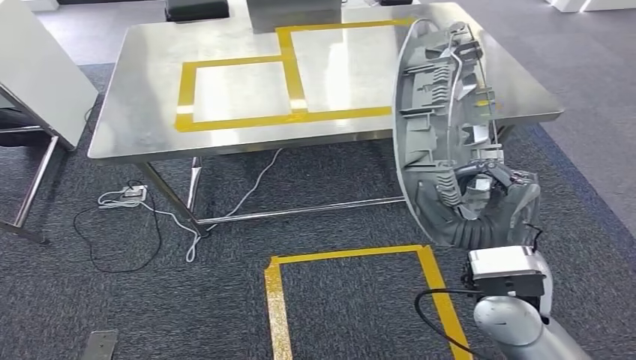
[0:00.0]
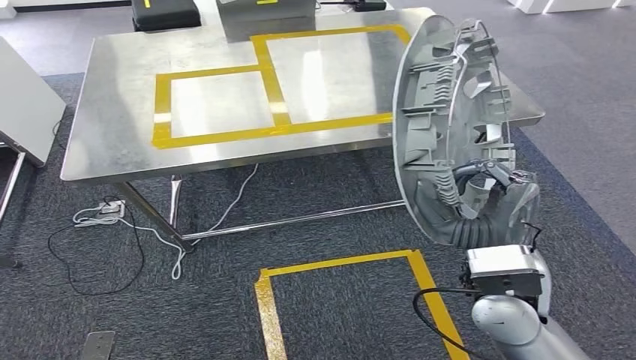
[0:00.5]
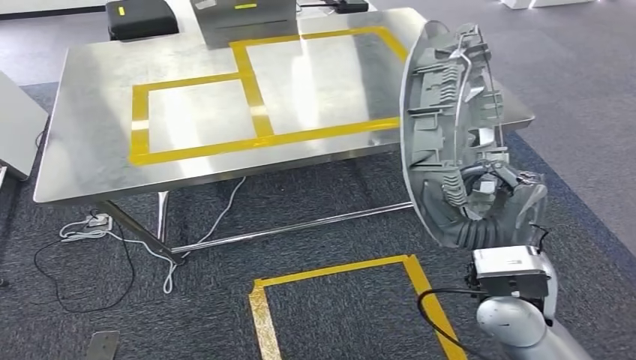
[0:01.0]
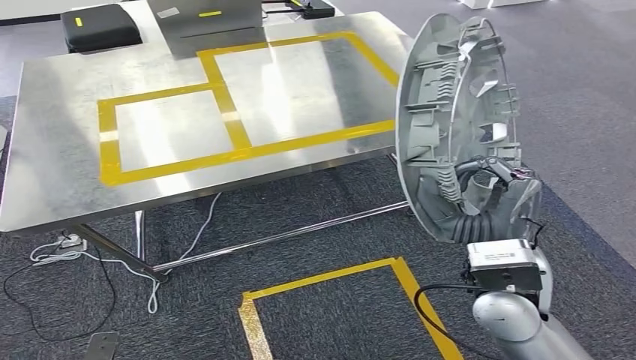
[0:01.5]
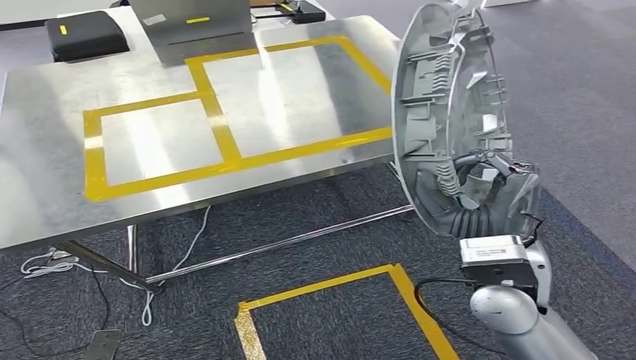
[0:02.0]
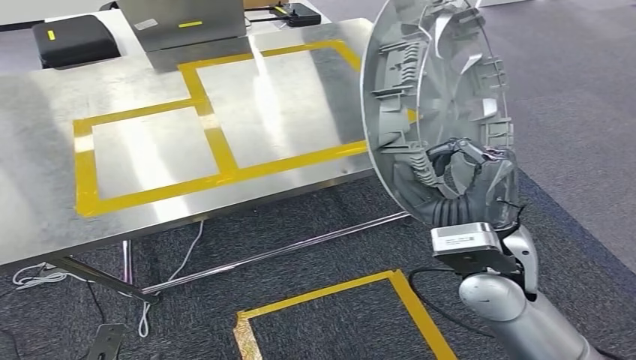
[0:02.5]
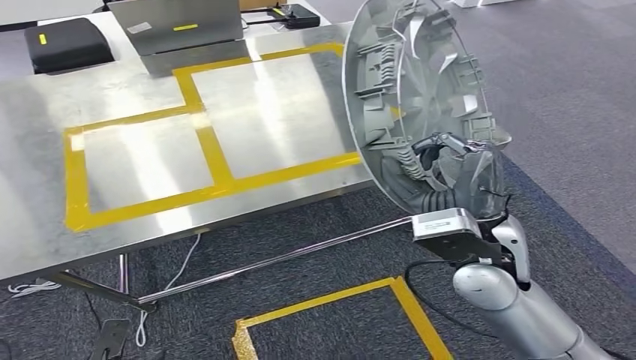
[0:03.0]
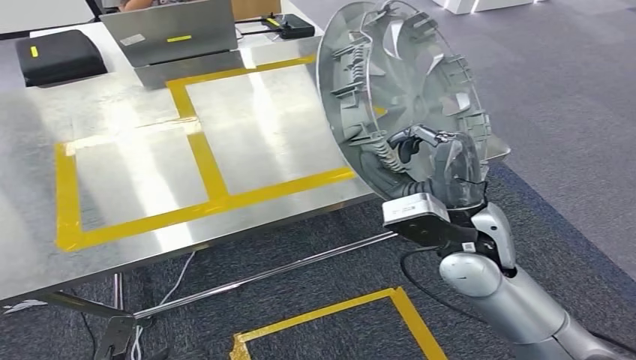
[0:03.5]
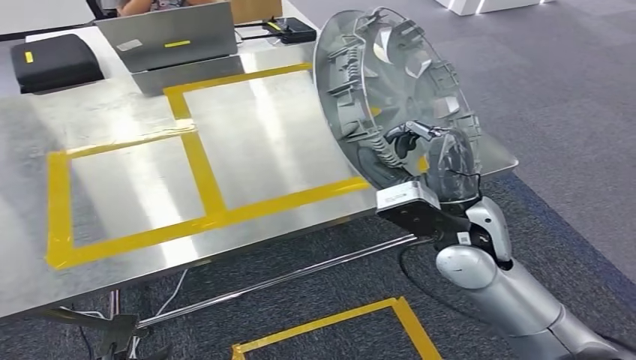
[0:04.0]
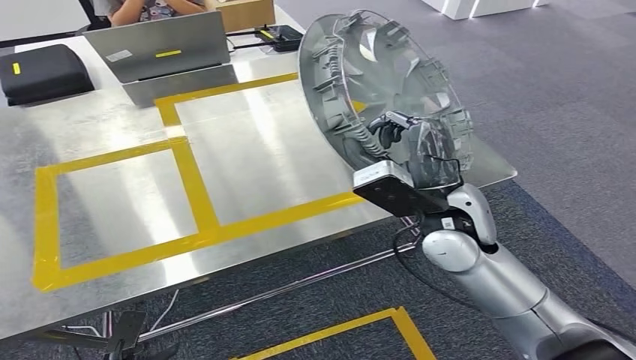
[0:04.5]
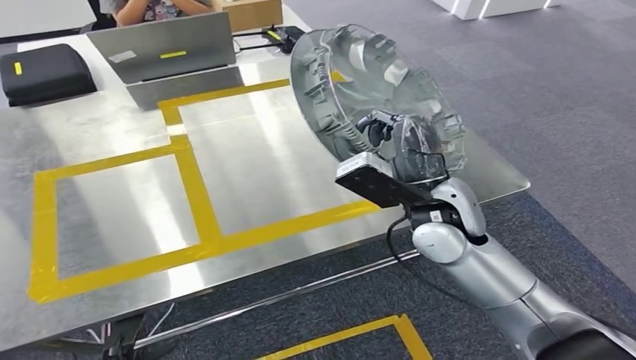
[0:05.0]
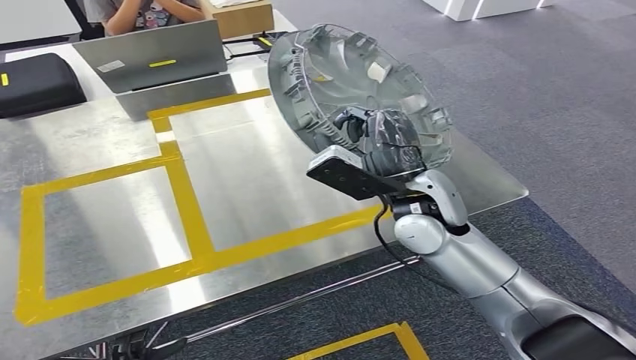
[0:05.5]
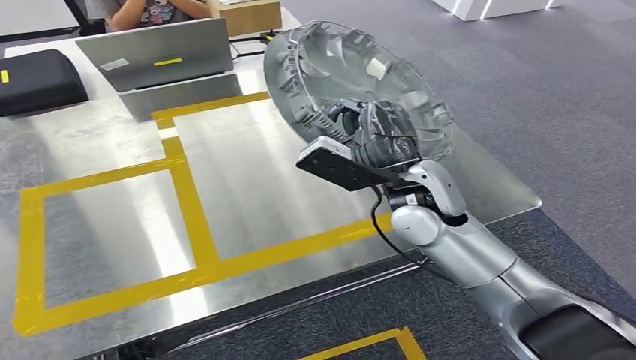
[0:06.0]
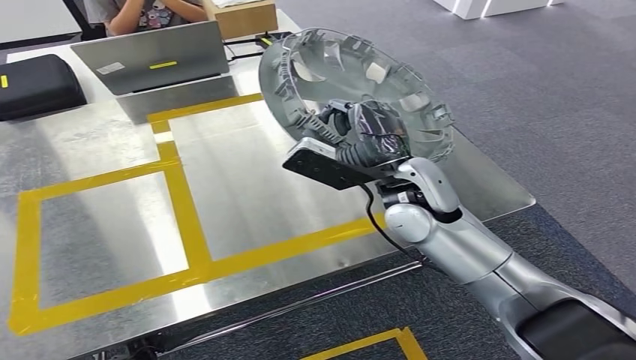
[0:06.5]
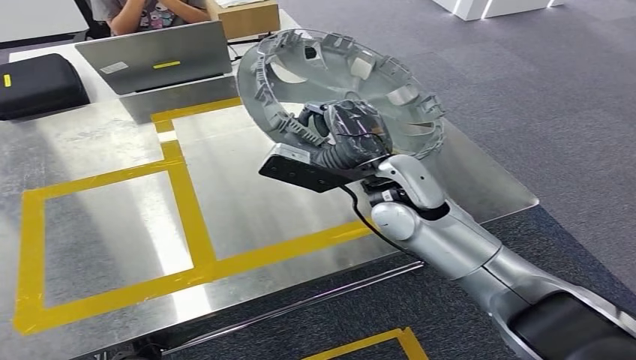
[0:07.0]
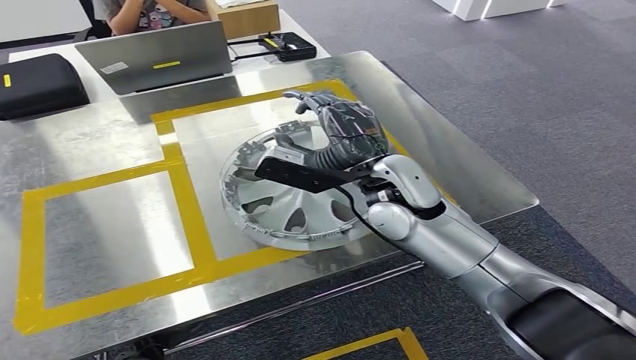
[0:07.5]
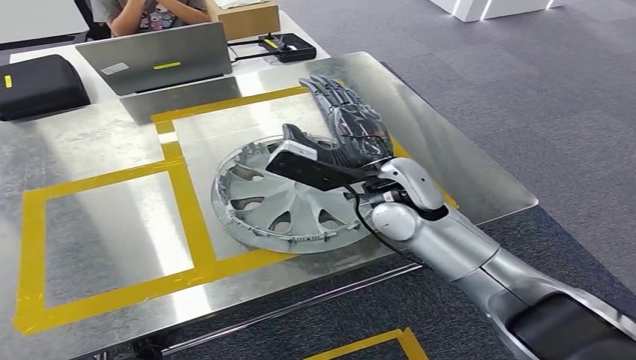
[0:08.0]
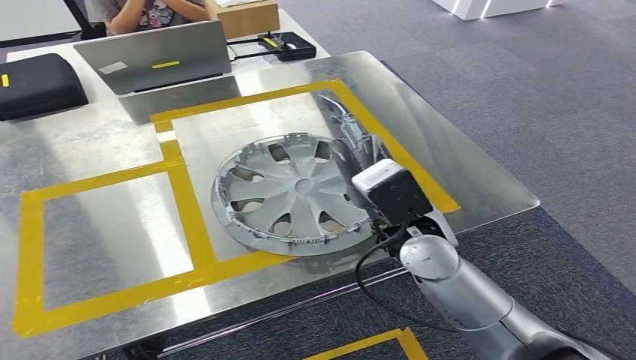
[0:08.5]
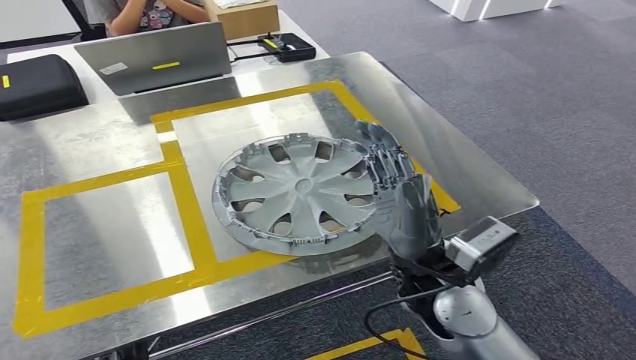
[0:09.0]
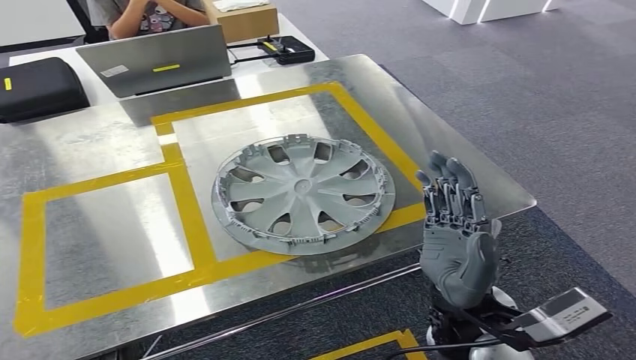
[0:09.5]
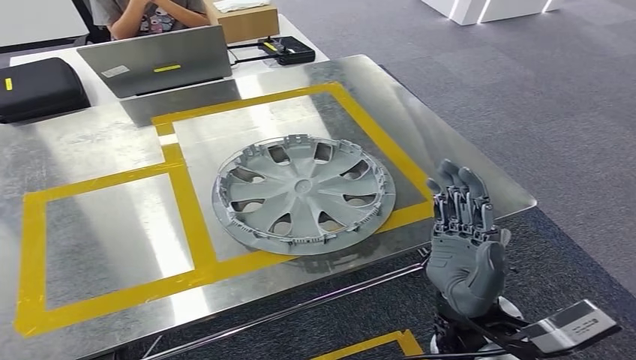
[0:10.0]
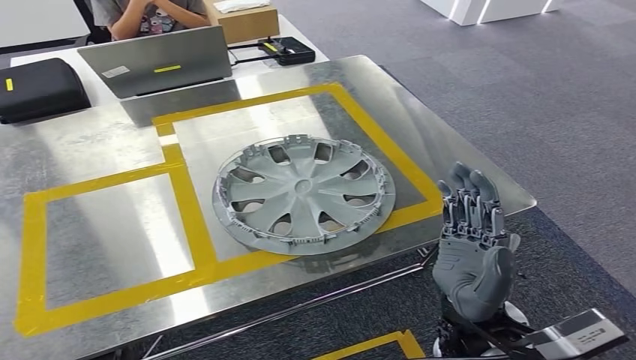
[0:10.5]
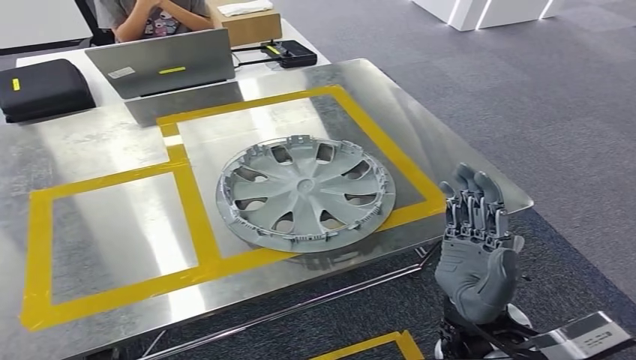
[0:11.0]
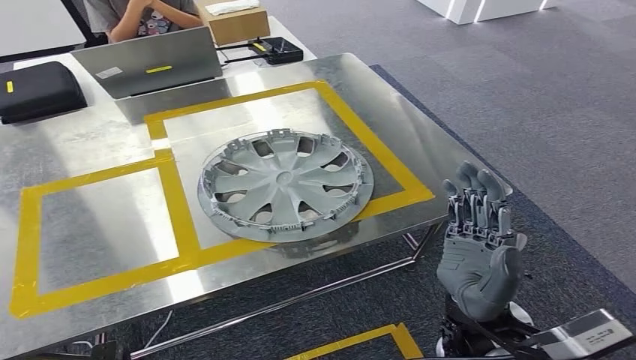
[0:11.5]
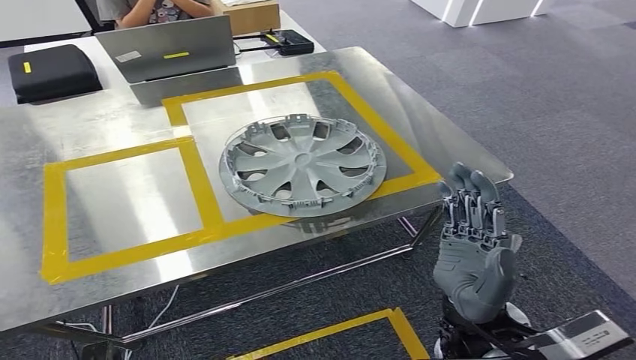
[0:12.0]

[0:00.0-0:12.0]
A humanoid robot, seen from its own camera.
Step, 0:00.0 to 0:09.5: Insert the small component into the corresponding slot on the workbench.

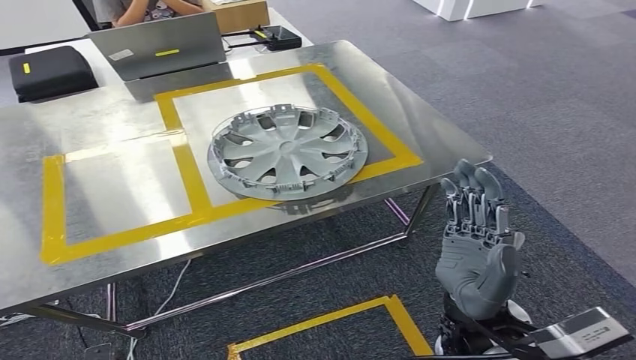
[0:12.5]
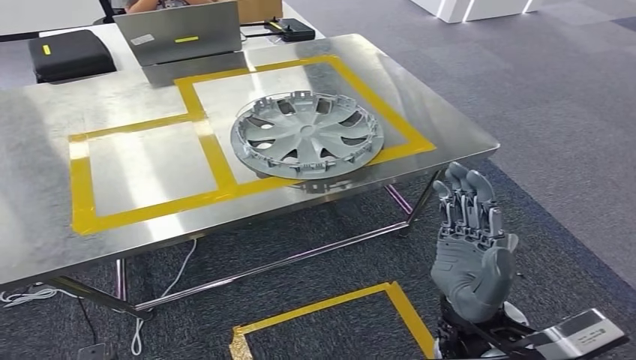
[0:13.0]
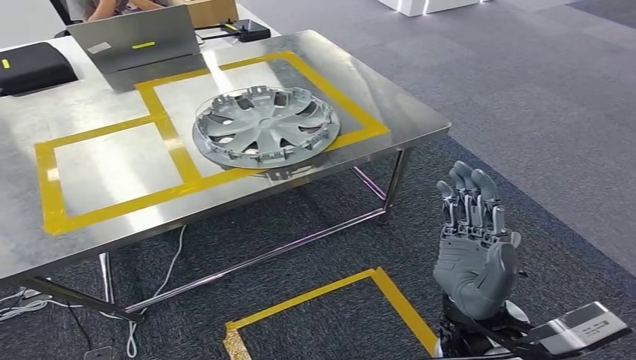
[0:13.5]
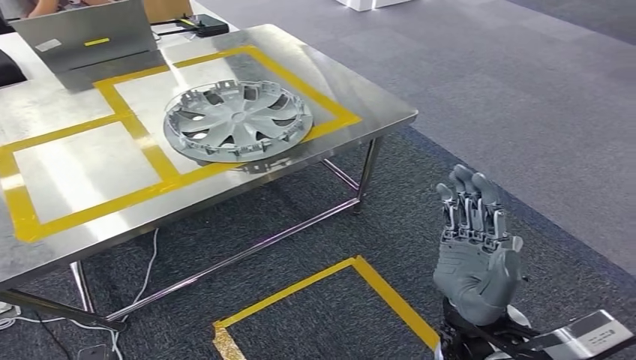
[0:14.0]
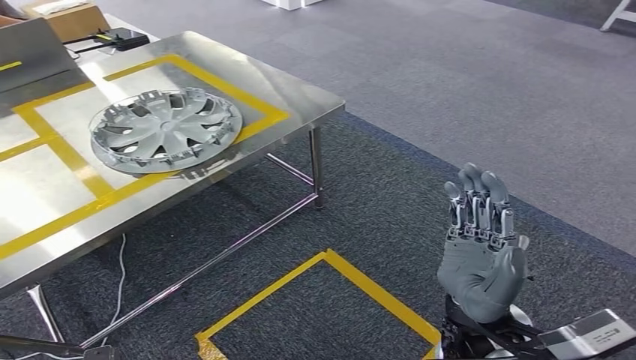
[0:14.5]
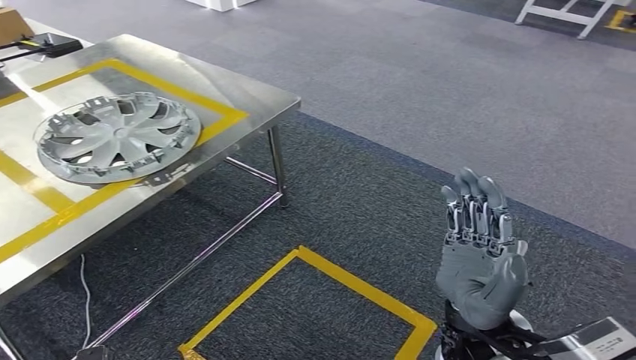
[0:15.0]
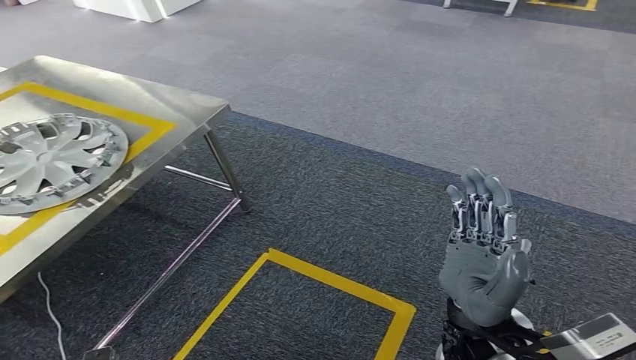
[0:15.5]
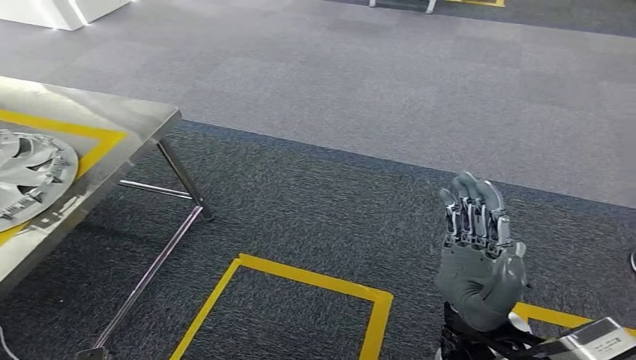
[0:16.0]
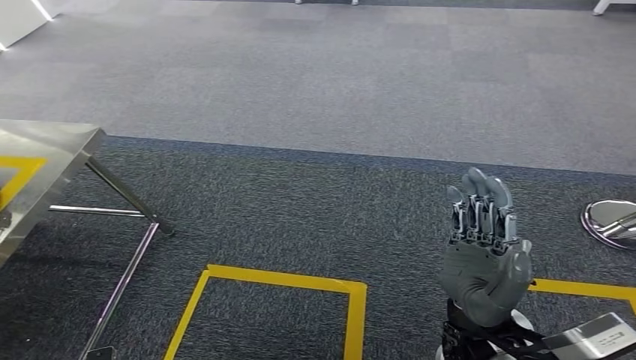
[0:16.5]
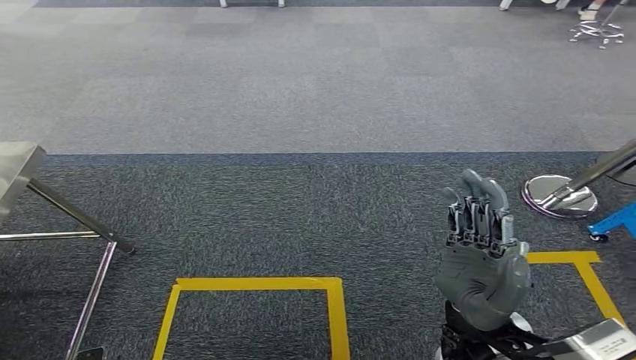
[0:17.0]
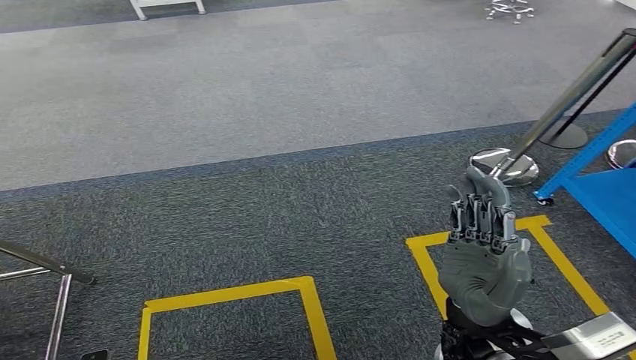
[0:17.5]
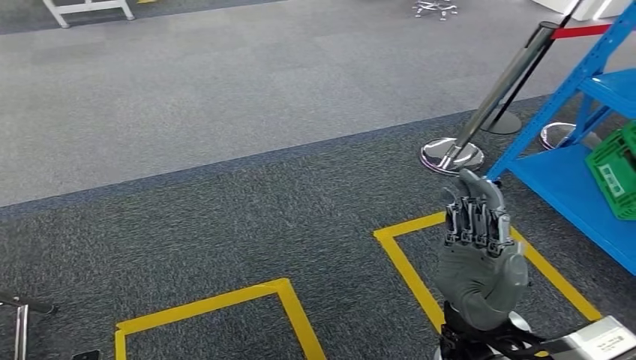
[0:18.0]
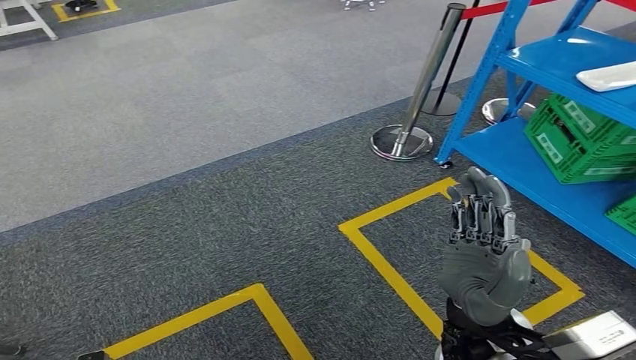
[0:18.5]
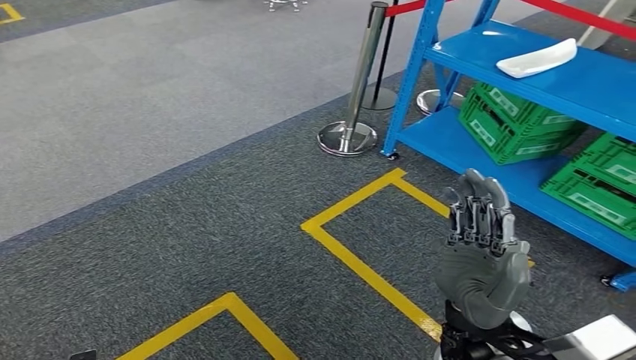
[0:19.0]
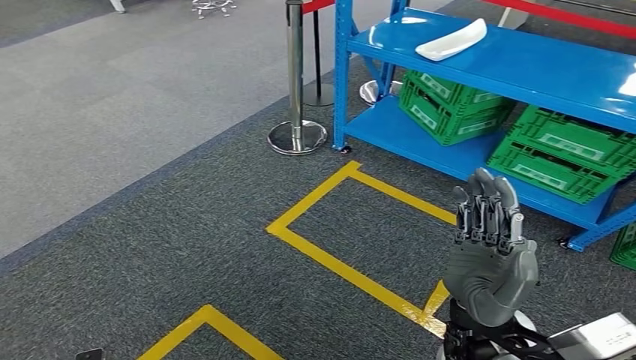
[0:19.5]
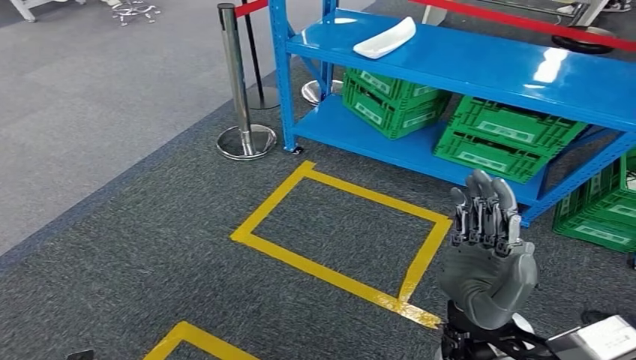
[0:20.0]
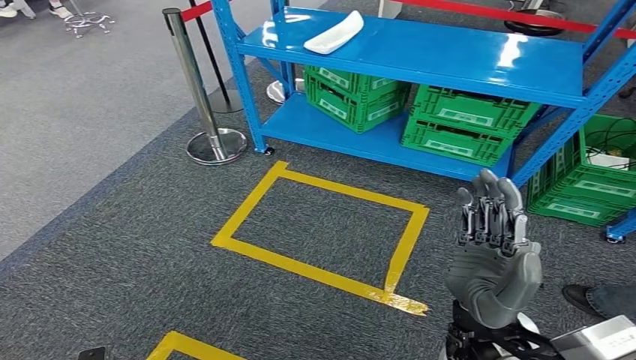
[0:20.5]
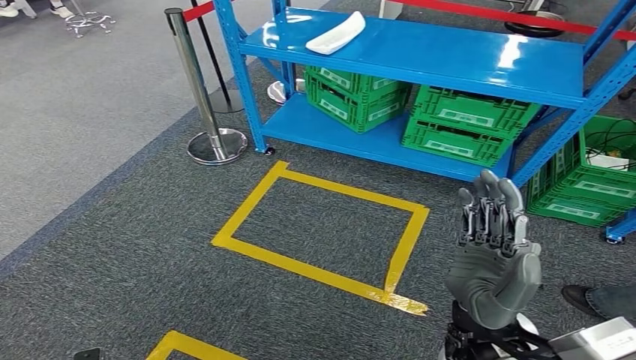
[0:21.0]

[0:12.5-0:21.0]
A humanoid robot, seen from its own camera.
Step, 0:12.5 to 0:21.0: Return to the initial position at the workbench.
